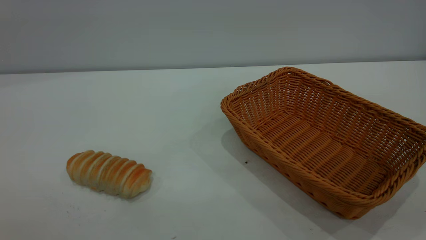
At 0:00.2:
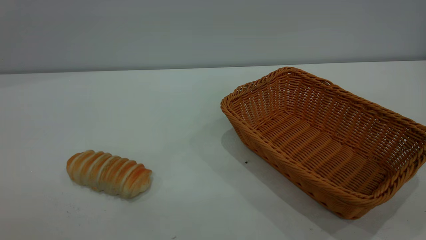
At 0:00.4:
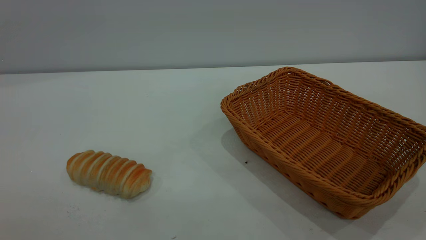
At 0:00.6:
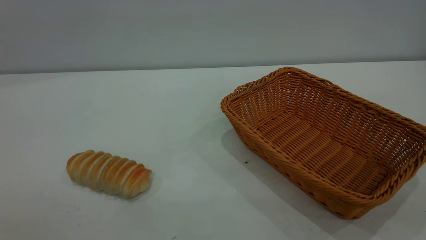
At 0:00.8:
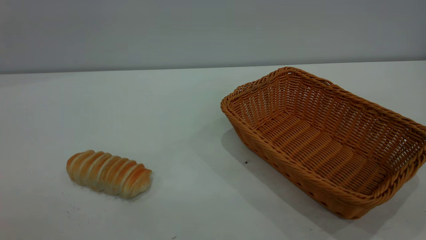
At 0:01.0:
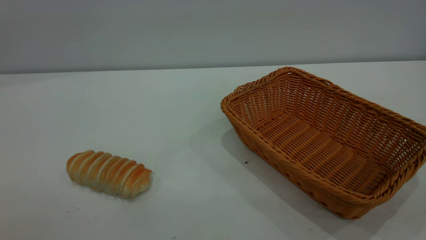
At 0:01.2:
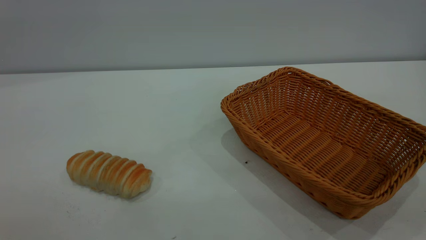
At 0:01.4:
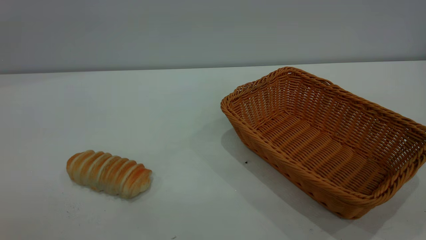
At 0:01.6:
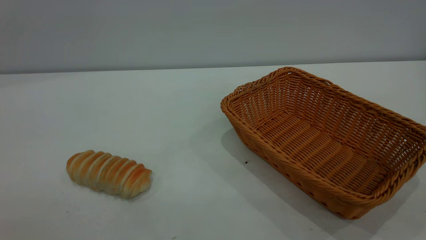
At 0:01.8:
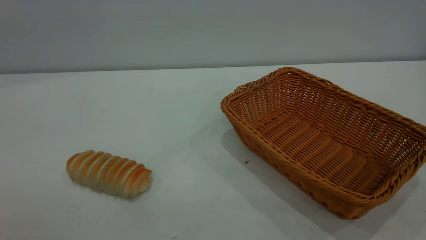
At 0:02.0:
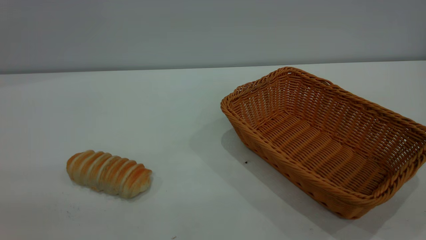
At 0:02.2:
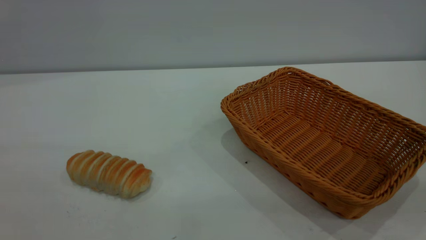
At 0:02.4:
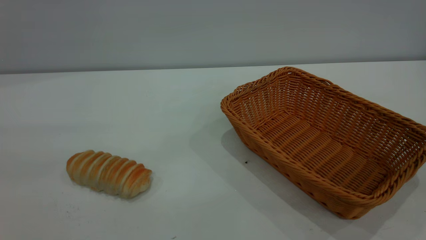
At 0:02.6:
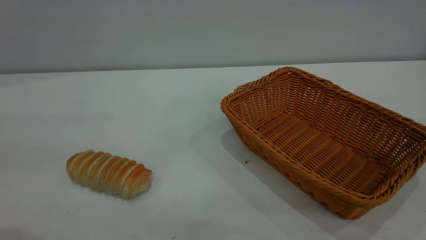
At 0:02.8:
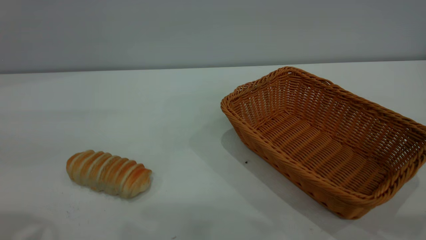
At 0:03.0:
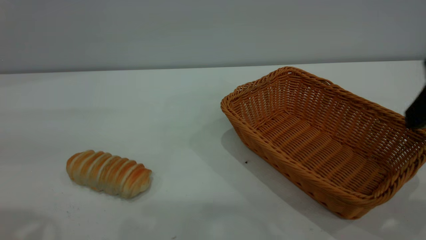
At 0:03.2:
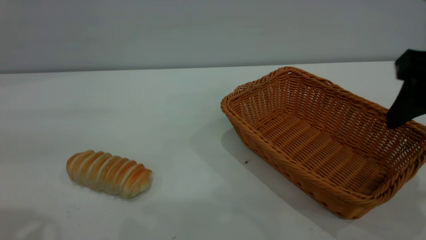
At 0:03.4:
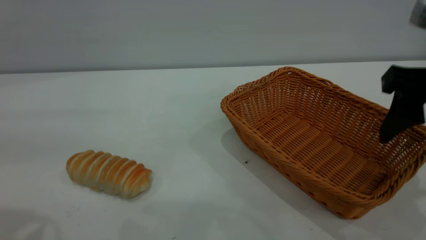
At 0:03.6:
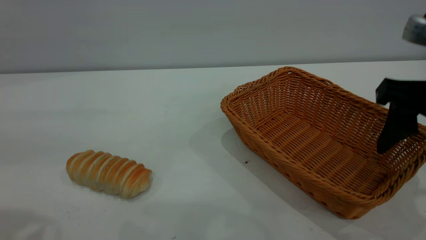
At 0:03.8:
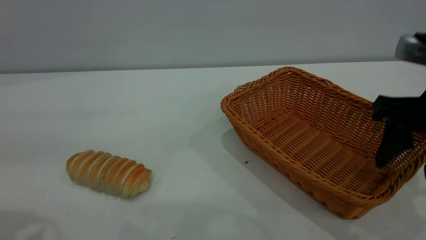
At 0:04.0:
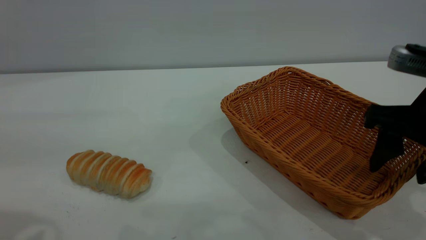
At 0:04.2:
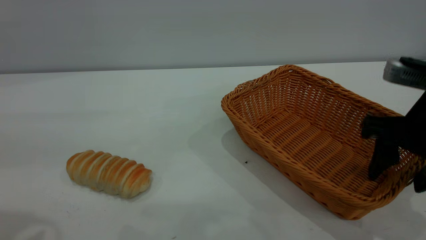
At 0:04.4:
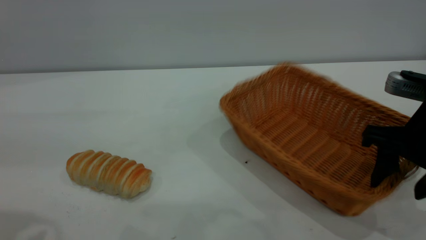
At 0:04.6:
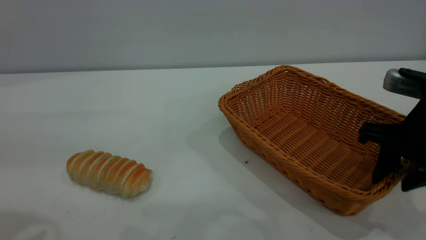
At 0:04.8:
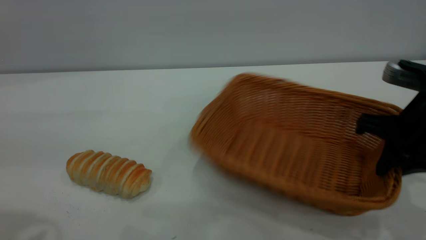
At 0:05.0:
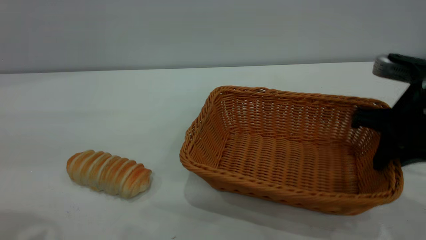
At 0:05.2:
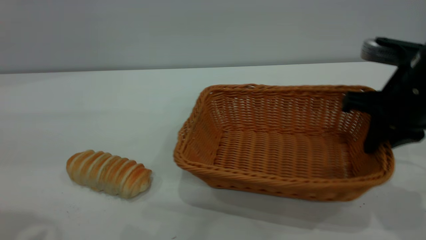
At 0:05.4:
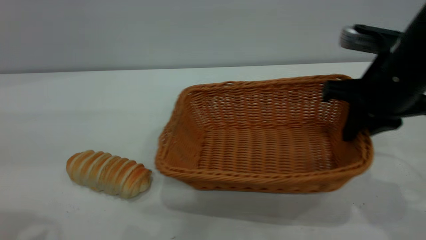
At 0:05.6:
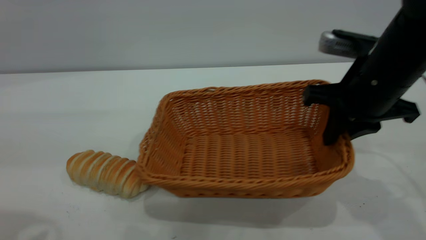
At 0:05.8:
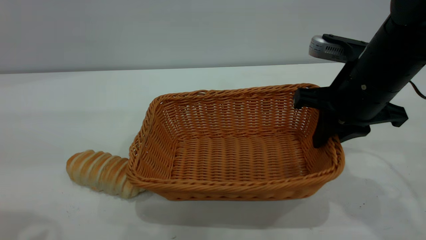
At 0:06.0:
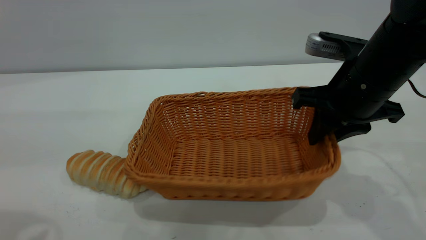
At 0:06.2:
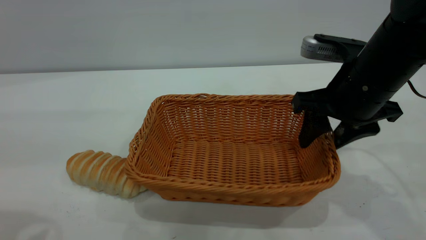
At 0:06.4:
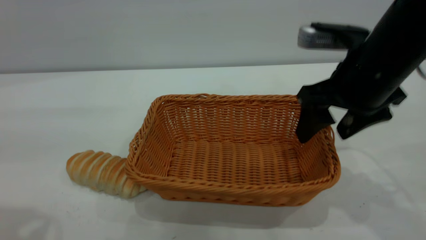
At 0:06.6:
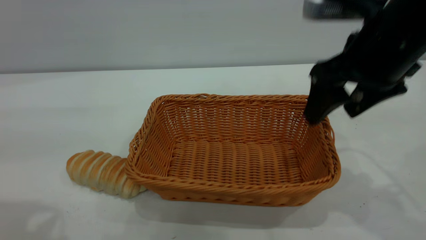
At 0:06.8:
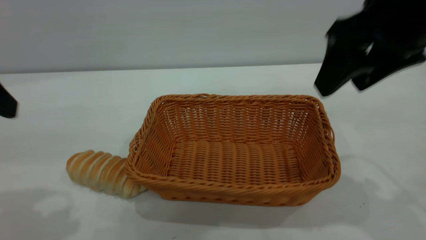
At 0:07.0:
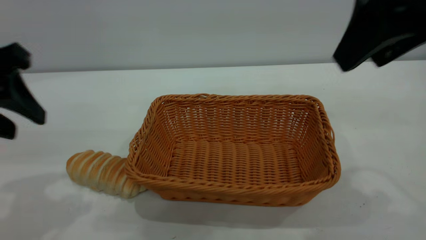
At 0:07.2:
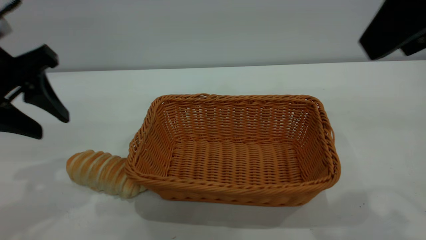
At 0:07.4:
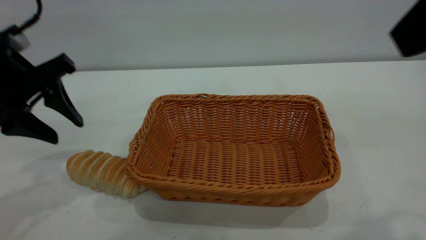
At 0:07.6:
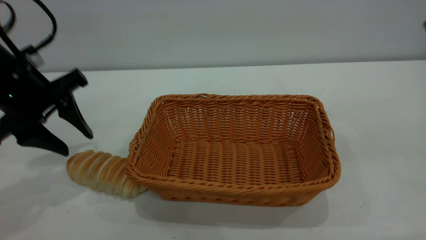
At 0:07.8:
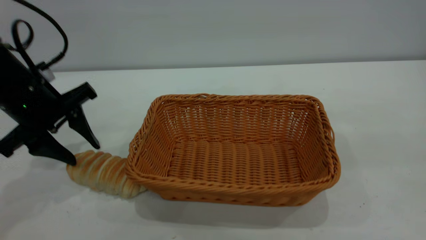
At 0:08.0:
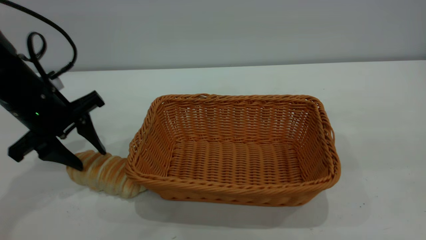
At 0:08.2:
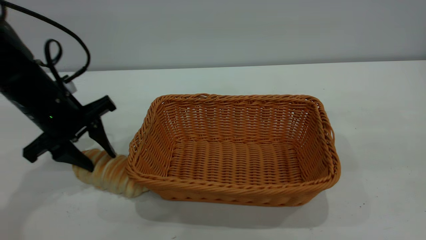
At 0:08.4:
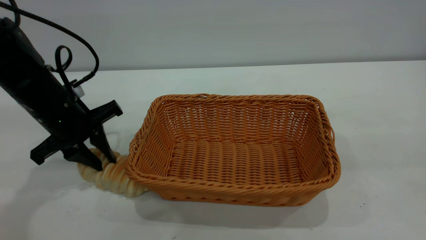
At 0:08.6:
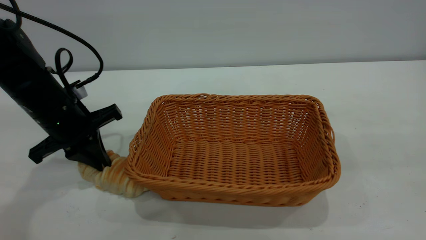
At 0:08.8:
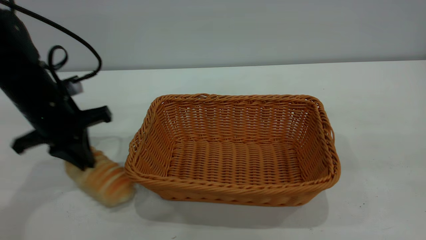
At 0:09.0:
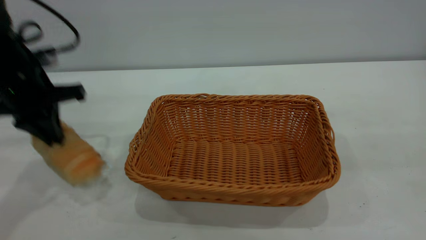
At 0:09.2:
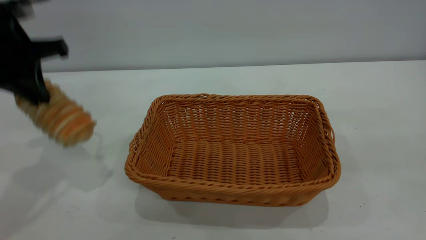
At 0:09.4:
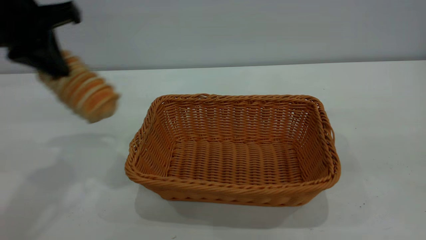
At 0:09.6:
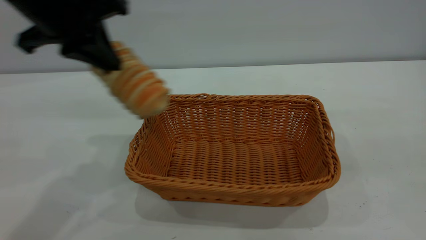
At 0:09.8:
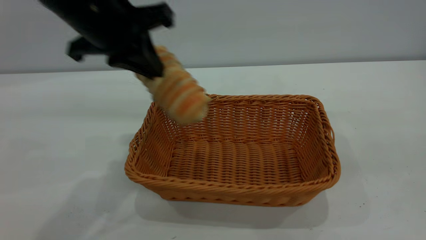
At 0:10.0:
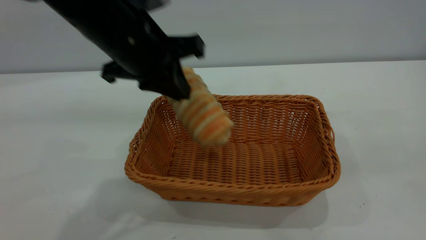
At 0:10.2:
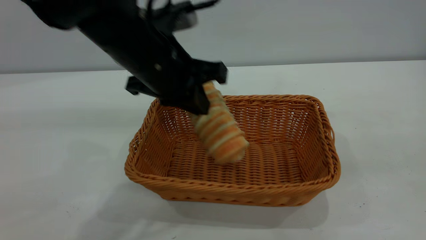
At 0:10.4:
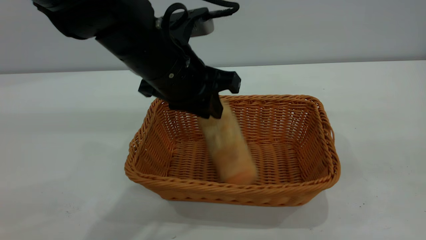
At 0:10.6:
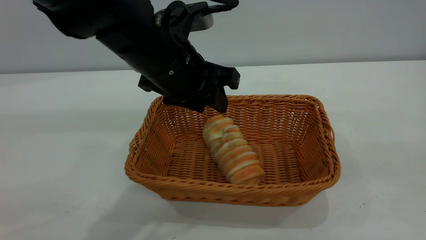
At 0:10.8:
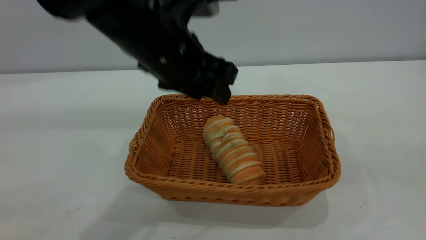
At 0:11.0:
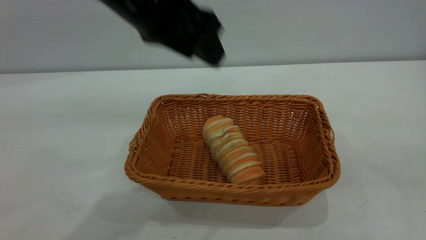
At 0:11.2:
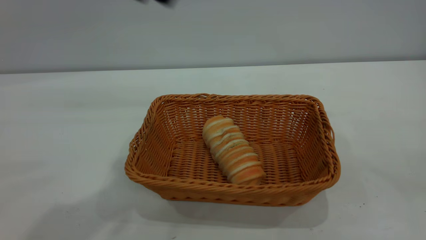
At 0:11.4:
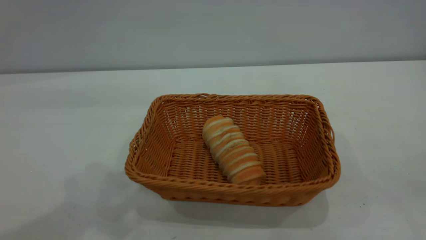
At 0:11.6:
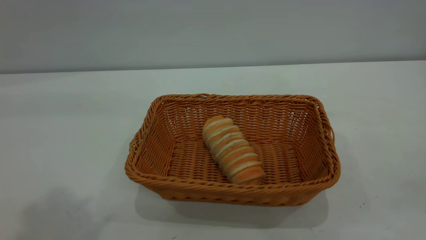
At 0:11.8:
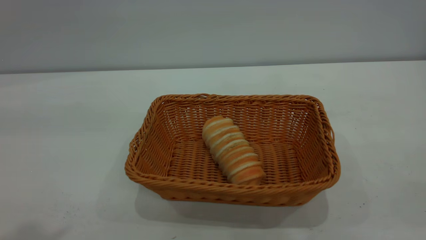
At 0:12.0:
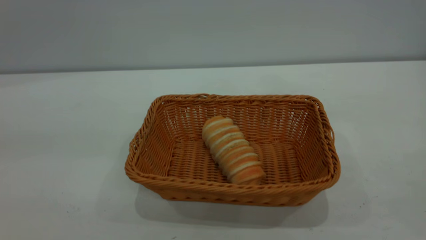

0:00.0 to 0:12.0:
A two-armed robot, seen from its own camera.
Task of the whole recording: One hand grasps the yellow basket and places it in the middle of the table, while the other hand picks up the long bread and puts it into the yellow basket.
Step, 0:00.0 to 0:06.6: Move the basket to the center of view.
Step, 0:09.2 to 0:10.8: place the bread into the basket.
0:00.0 to 0:01.6: Both grippers stay about where they are.
0:01.6 to 0:03.0: The right gripper moves forward, some 20 cm, and opens up.
0:03.0 to 0:04.4: The right gripper is displaced downward and forward by roughly 15 cm.
0:04.4 to 0:06.0: The right gripper heads to the left and forward, covering some 10 cm, and closes.
0:06.0 to 0:07.6: The left gripper moves forward and downward, about 20 cm. The right gripper shifts about 25 cm upward and backward, and opens.
0:07.6 to 0:09.0: The left gripper goes downward and returns, about 5 cm each way, and closes its fingers.
0:09.0 to 0:10.4: The left gripper is displaced to the right by about 20 cm, and opens.
0:10.4 to 0:12.0: The right gripper travels backward and to the right by roughly 10 cm. Meanwhile the left gripper goes some 40 cm upward, backward and to the left, and opens.

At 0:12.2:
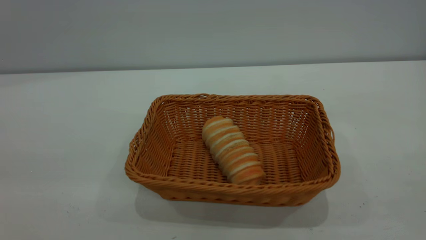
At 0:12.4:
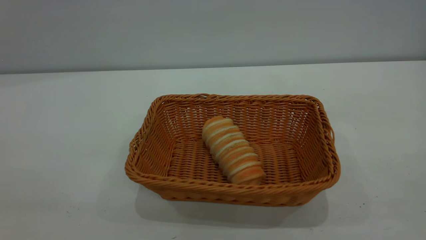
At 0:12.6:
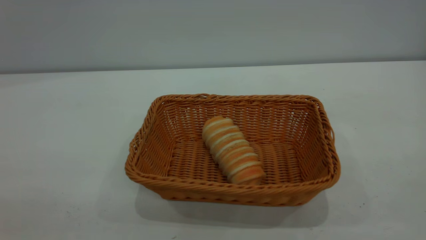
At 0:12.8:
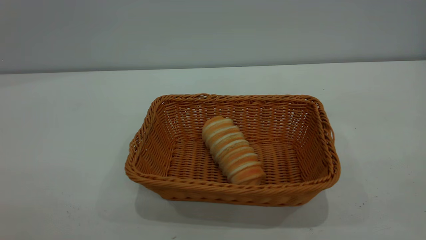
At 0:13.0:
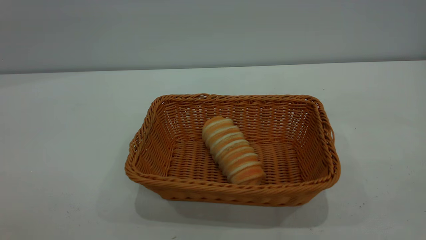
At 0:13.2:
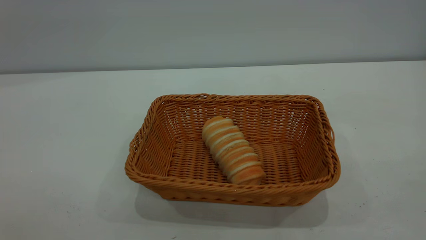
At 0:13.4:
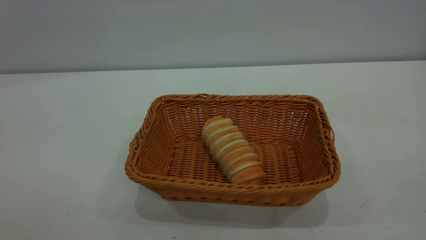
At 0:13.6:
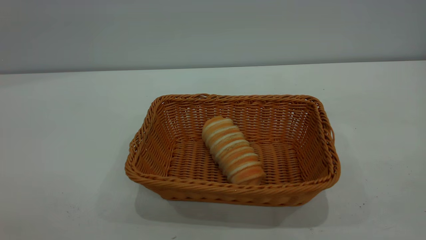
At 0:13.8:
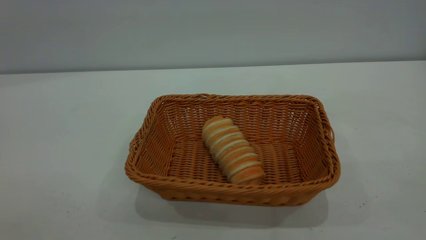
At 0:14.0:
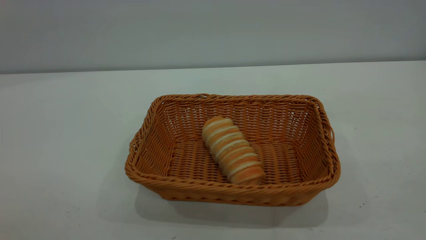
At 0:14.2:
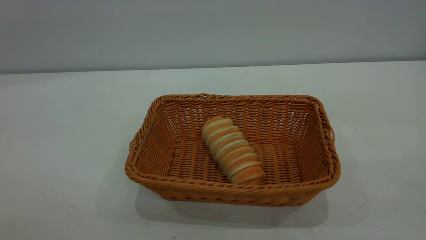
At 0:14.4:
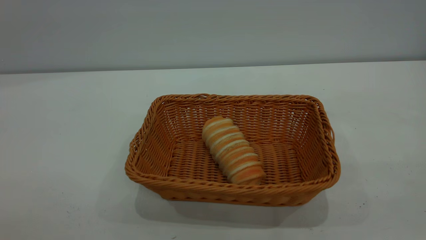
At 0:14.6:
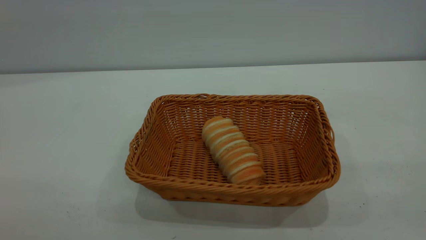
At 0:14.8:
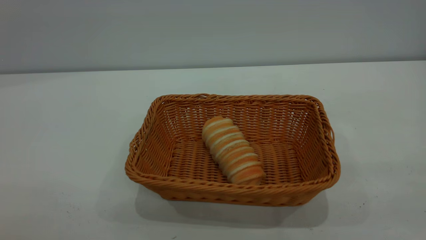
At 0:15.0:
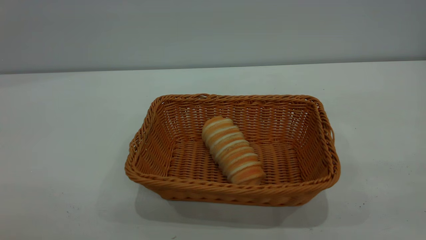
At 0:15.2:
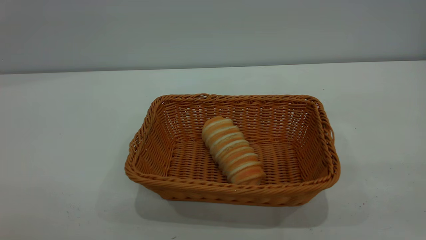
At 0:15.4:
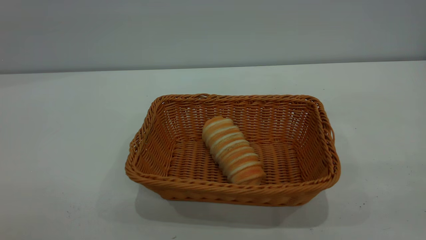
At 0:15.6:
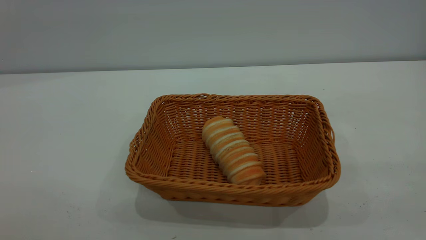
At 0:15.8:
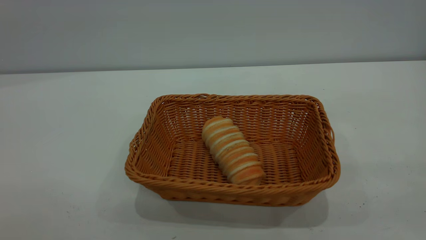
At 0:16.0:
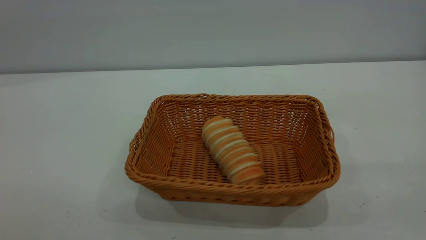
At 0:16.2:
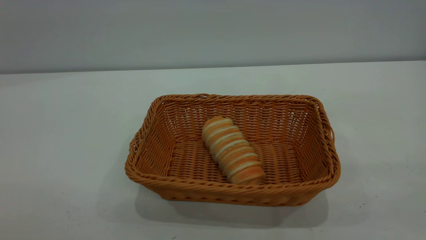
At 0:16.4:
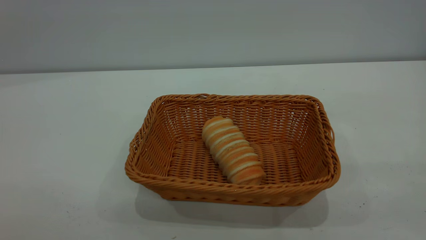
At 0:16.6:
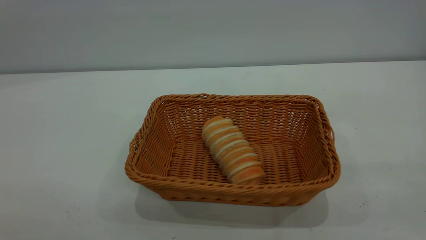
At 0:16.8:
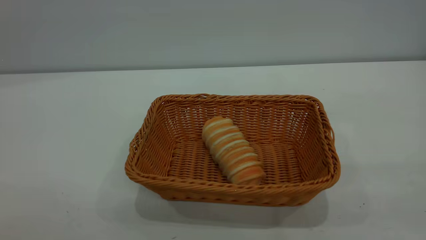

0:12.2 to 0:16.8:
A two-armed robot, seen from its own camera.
Task of the whole recording: One hand grasps the yellow basket and places it in the middle of the table, while the other hand picks up the long bread and puts it into the yellow basket.
0:15.2 to 0:16.8: The two grippers keep their place.
